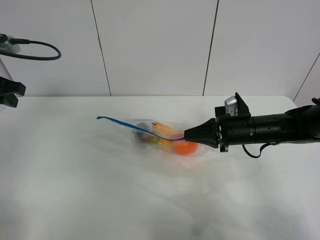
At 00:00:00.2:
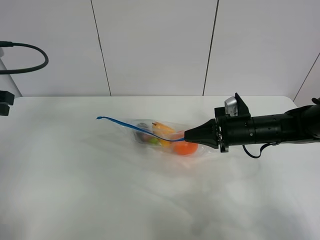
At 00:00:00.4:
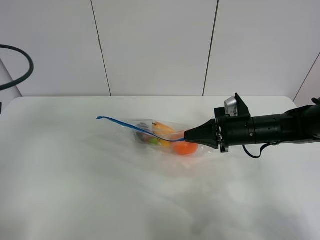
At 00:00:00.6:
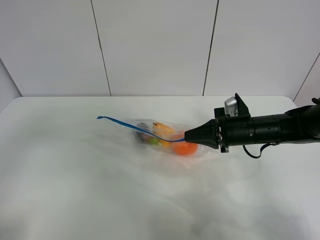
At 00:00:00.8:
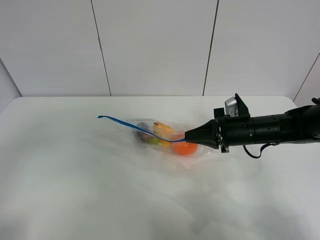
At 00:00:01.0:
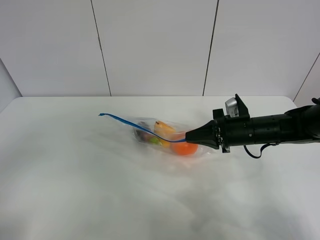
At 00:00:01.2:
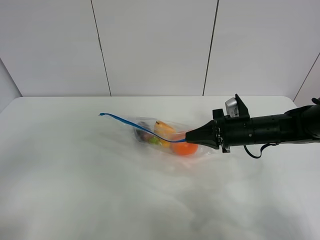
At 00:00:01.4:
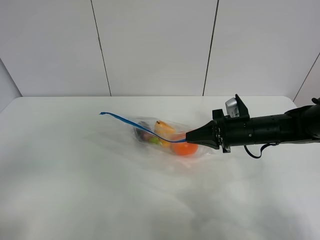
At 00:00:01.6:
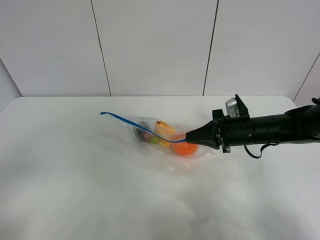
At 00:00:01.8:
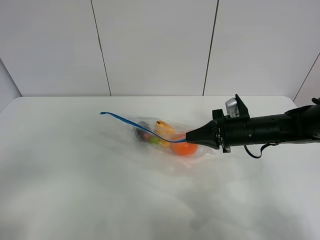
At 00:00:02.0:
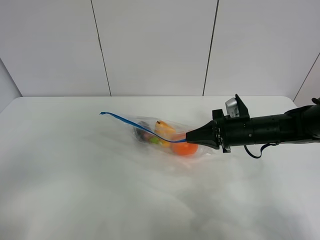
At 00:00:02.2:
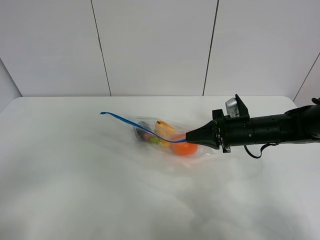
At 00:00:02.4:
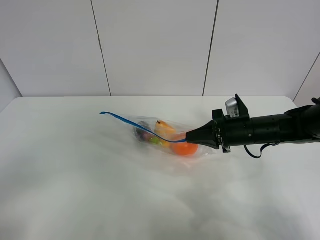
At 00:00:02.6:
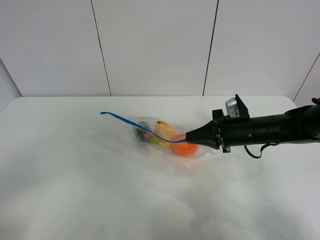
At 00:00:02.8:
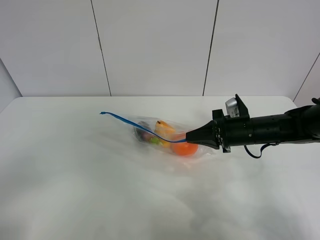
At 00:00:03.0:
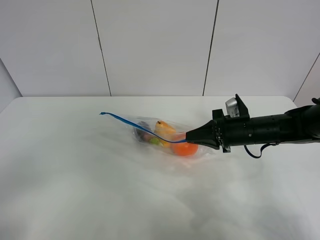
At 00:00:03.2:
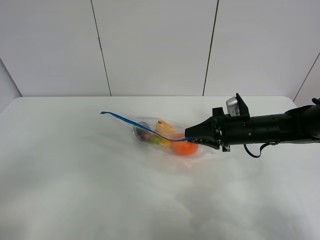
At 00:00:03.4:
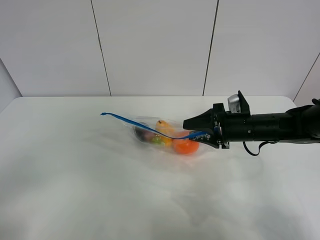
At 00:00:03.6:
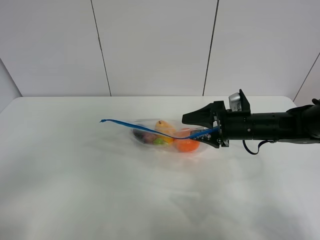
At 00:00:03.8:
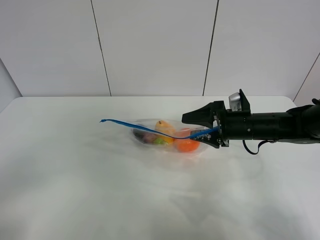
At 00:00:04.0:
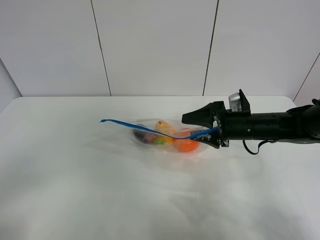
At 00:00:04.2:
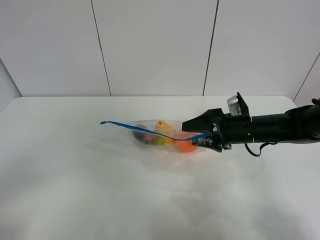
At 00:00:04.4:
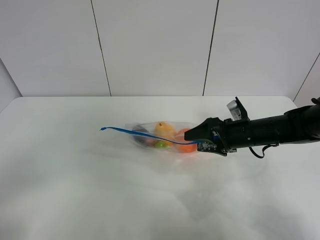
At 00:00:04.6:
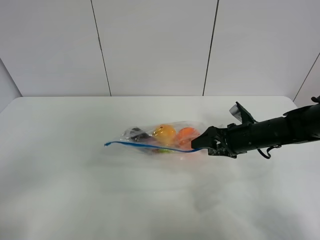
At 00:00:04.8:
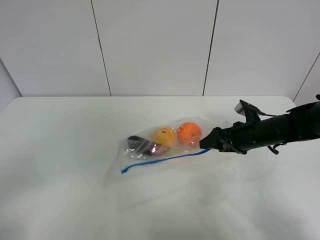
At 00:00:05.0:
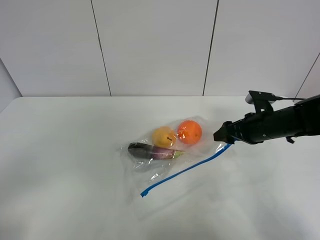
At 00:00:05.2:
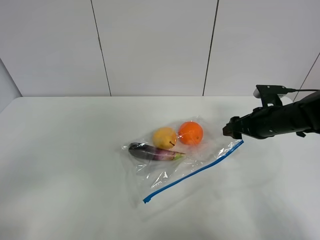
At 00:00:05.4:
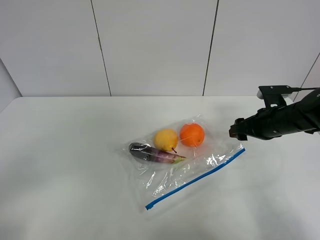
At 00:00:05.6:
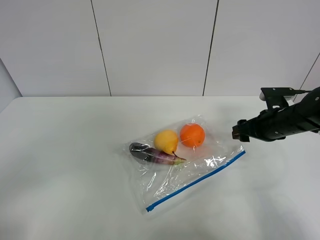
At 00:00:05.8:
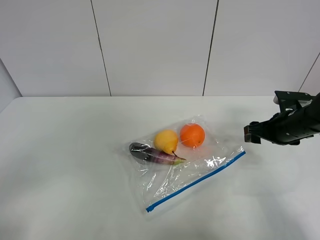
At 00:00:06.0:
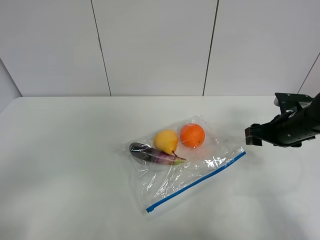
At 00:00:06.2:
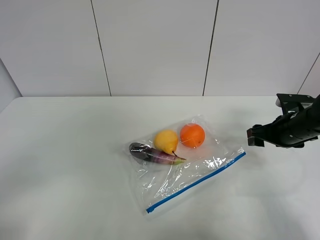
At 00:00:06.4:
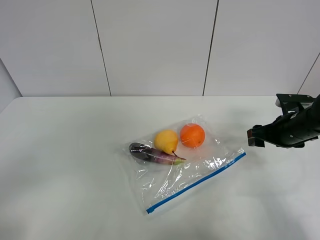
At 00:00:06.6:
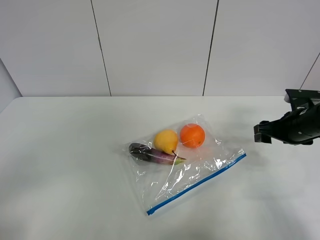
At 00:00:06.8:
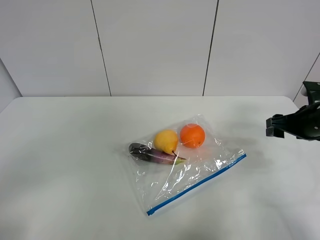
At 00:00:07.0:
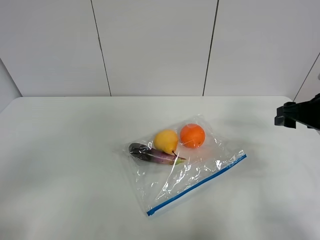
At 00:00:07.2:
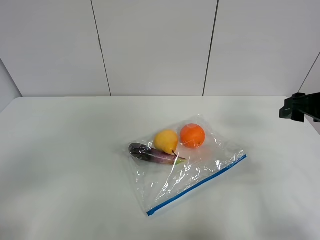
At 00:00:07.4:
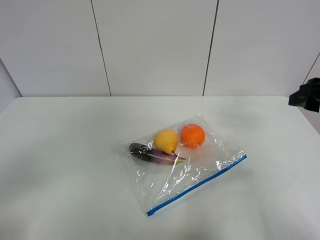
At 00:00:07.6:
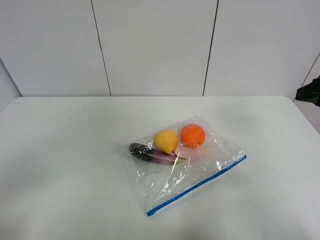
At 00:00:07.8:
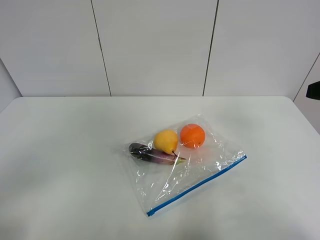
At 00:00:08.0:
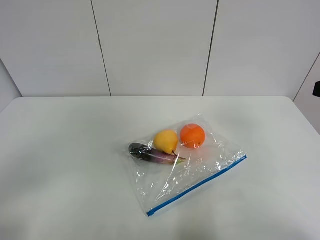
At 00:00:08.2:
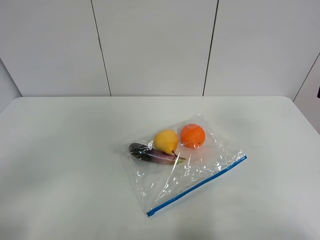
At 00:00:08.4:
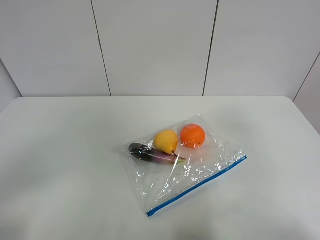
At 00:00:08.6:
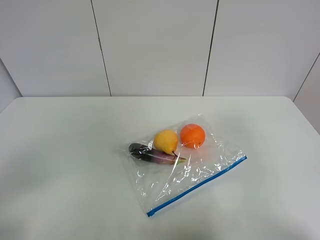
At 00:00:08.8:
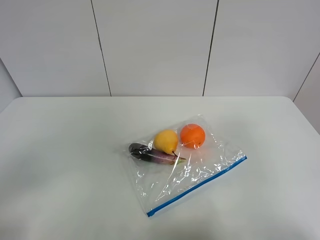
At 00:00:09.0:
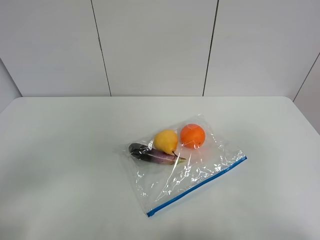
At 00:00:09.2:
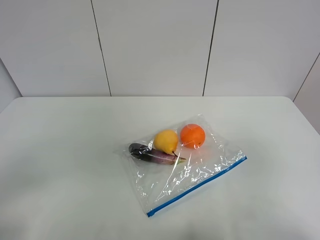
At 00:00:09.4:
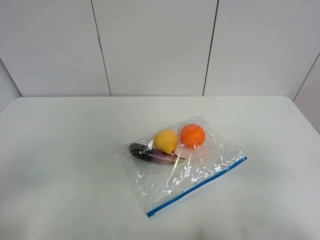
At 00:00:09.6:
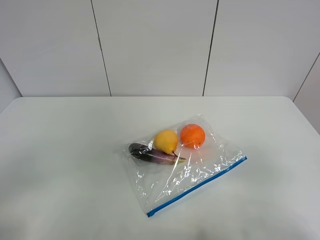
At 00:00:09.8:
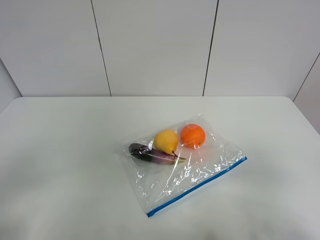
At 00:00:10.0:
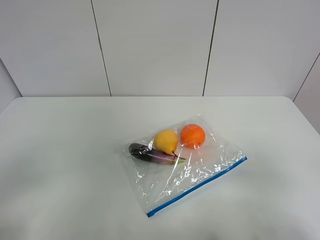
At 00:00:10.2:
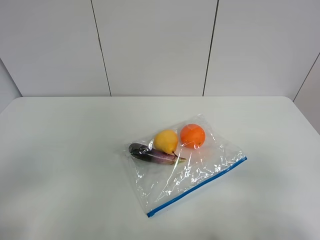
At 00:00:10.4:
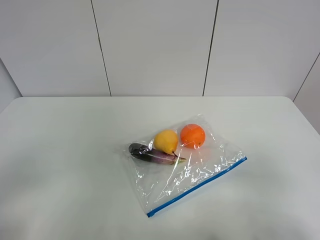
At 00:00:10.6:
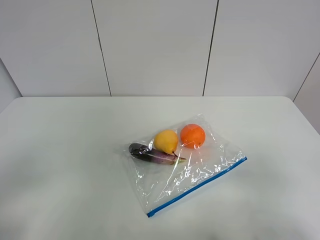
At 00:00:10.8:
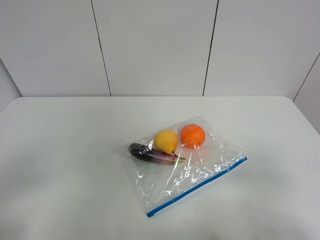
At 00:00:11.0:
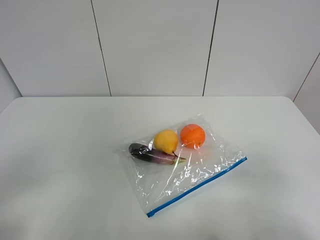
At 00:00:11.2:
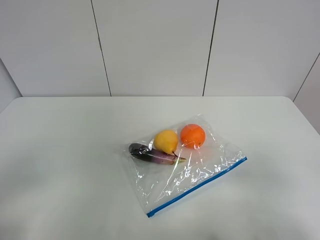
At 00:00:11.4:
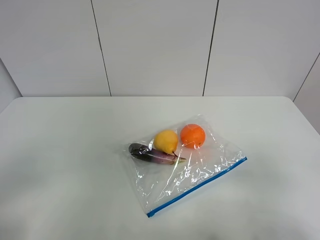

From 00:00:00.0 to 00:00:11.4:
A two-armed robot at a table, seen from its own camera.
Step, from 00:00:00.0 to 00:00:05.6: Place the fruit bag with right gripper.
From 00:00:00.0 to 00:00:01.4: The left gripper moves backward, some 30 cm.
From 00:00:02.8 to 00:00:04.2: The right gripper opens up.
From 00:00:04.2 to 00:00:05.6: The right gripper moves to the right, about 5 cm.
From 00:00:05.6 to 00:00:07.2: The right gripper shifts approximately 15 cm upward and backward.
From 00:00:07.2 to 00:00:08.6: The right gripper heads backward and upward, covering roughly 20 cm.
From 00:00:08.6 to 00:00:10.0: The right gripper goes approximately 10 cm downward and backward.
From 00:00:10.0 to 00:00:11.4: Both grippers stay about where they are.
